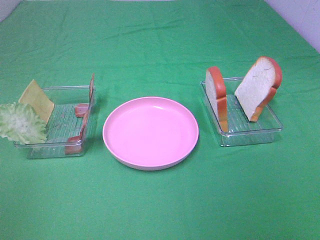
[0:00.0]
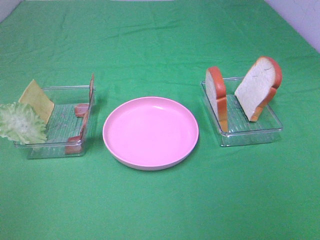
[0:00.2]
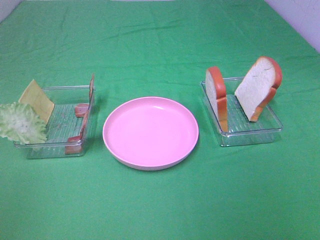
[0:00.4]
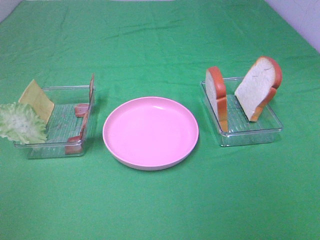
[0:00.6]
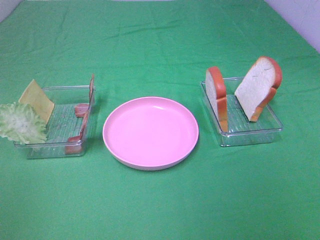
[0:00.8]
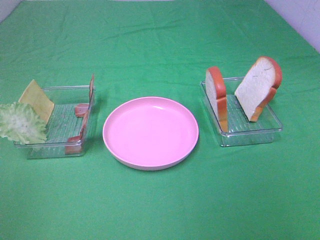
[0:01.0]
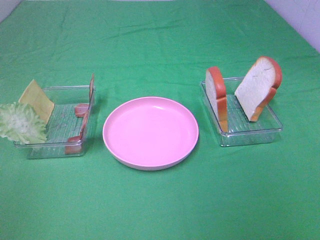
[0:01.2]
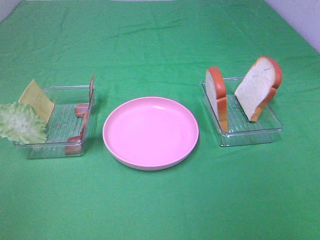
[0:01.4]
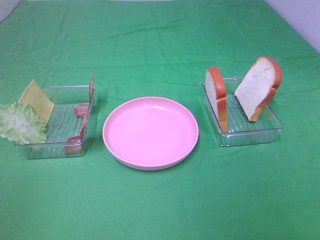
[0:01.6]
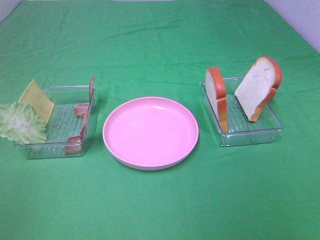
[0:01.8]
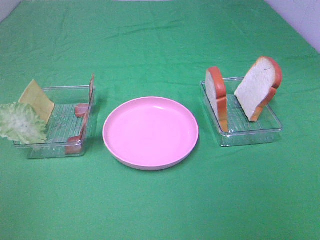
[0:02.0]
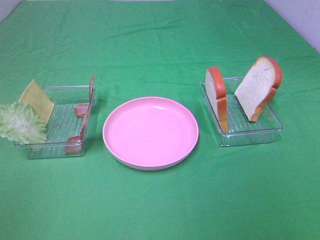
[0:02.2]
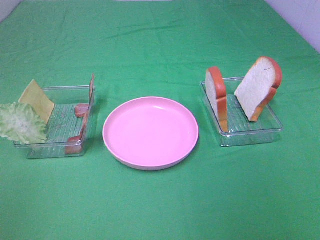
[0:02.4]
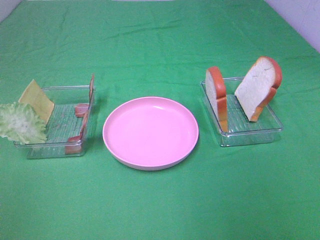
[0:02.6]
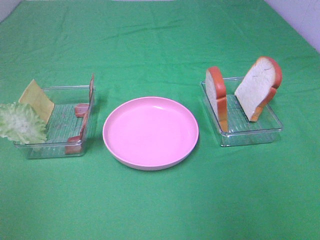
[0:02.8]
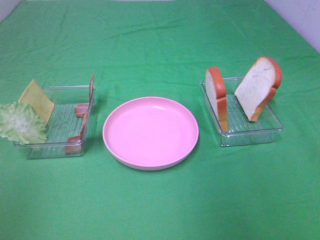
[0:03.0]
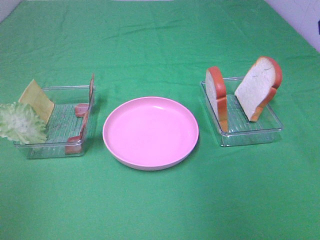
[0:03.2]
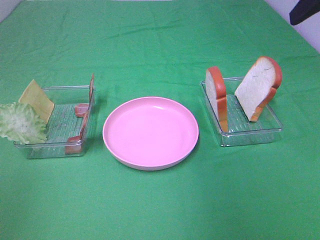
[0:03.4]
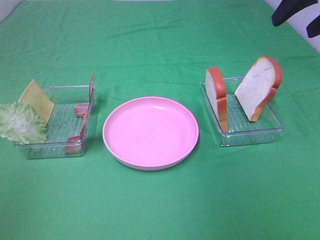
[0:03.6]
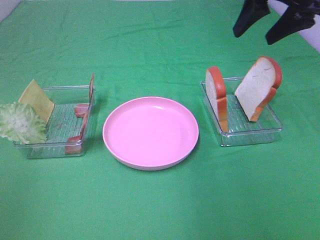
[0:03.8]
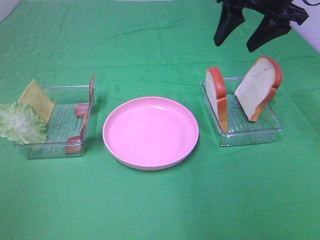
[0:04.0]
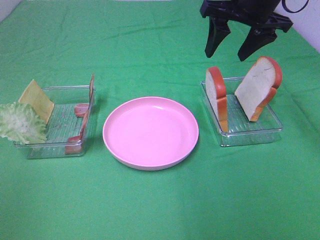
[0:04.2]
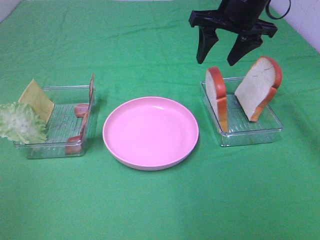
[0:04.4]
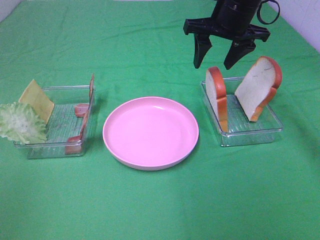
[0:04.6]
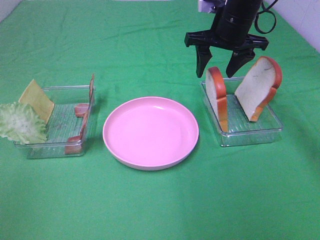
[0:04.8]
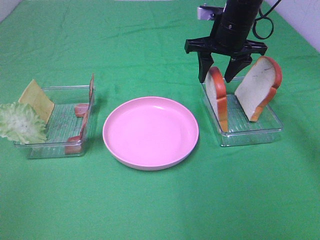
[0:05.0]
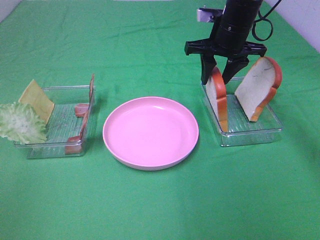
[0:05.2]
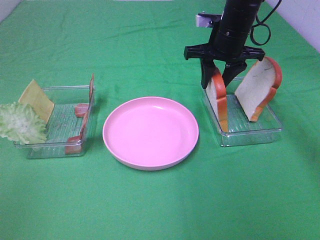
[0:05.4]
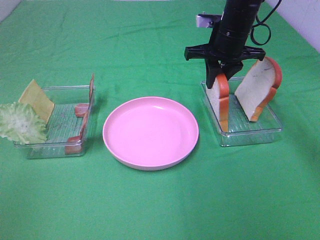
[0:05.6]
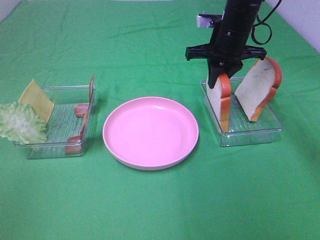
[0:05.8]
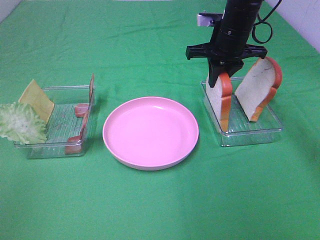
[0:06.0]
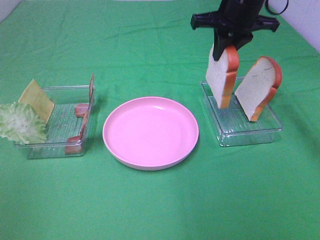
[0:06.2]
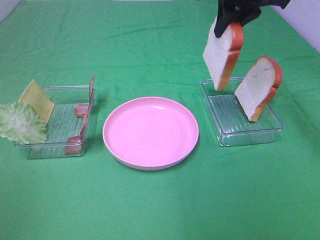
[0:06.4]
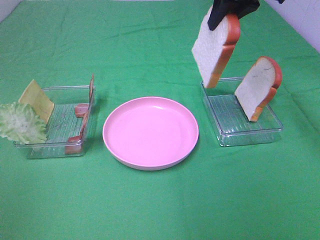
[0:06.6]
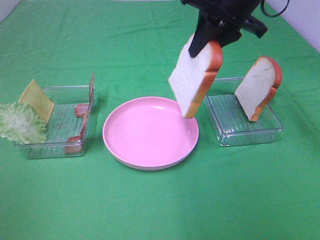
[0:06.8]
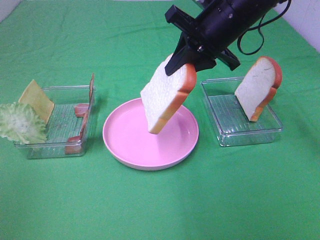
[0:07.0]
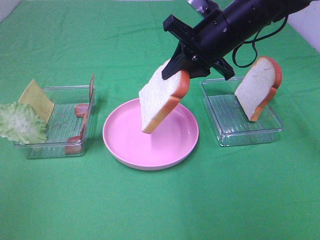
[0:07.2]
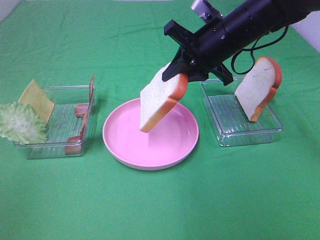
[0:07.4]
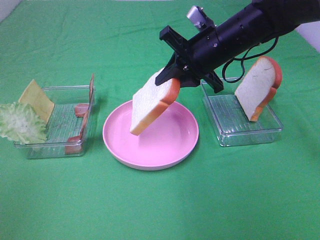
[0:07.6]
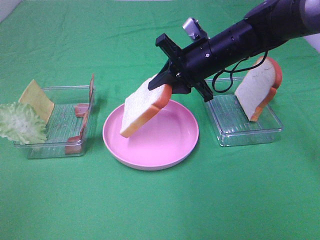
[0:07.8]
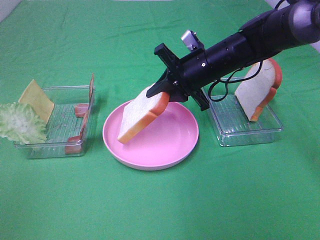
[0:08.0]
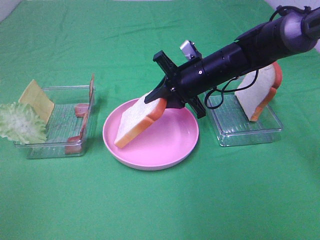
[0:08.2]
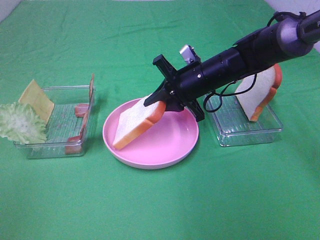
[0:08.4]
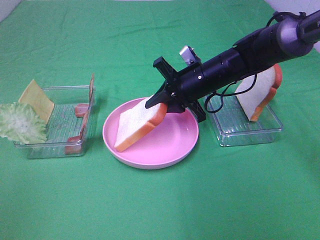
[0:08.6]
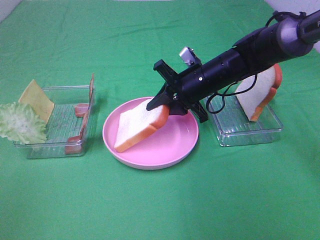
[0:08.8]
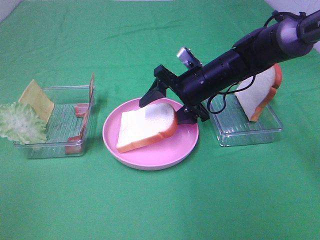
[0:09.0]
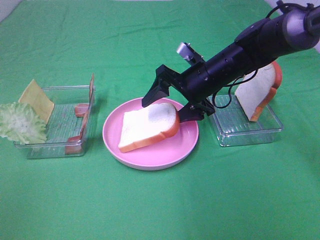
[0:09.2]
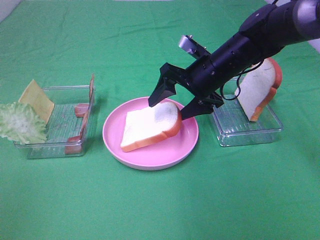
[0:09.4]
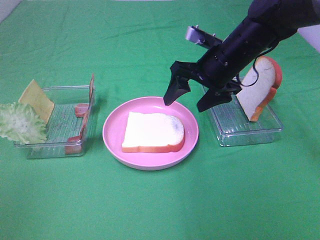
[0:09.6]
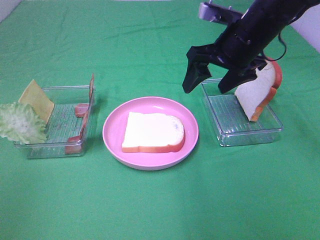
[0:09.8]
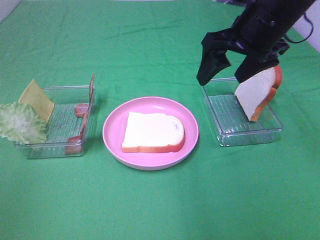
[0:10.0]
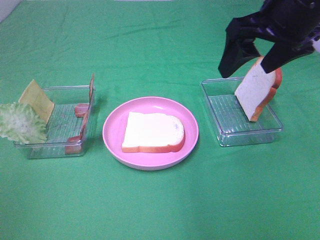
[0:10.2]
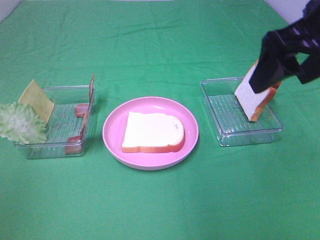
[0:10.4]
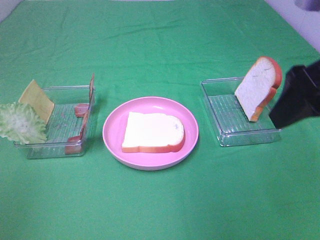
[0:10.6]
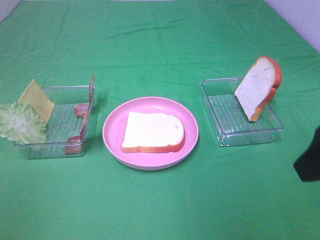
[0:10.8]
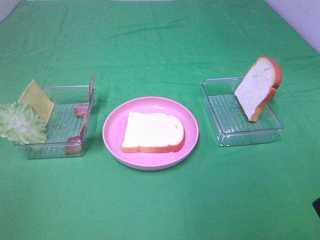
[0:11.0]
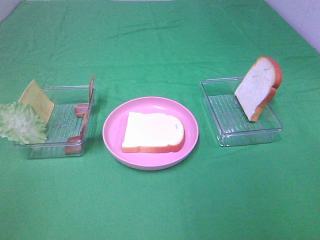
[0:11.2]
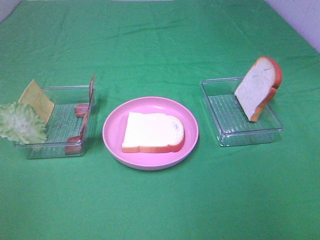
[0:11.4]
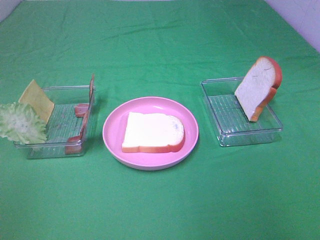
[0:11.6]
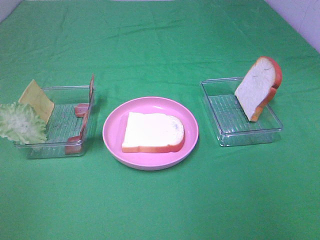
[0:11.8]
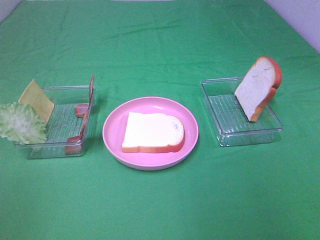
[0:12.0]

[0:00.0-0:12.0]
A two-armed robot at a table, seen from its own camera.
Task of the whole recording: Make sandwiches.
Step, 0.0 to 6.0 s: Right hand:grab the bread slice.
Step, 6.2 to 9.4 s: Right hand:place the bread slice on the plate.
0.0 to 1.6 s: Both grippers stay about where they are.
3.0 to 4.4 s: The right gripper travels forward, to the left and downward by roughly 30 cm.
4.4 to 6.0 s: The right gripper is displaced downward by approximately 5 cm, and closes its fingers.
6.0 to 7.6 s: The right gripper is displaced backward by approximately 5 cm, and travels upward and back again, some 10 cm each way.
7.6 to 9.0 s: The right gripper shifts approximately 10 cm downward, and opens up.
9.0 to 10.4 s: The right gripper moves upward, backward and to the right, approximately 25 cm.
10.4 to 12.0 s: The right gripper is displaced backward by about 25 cm.

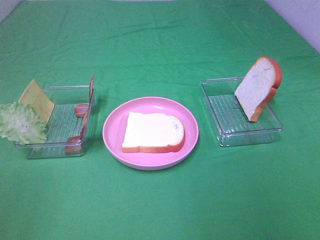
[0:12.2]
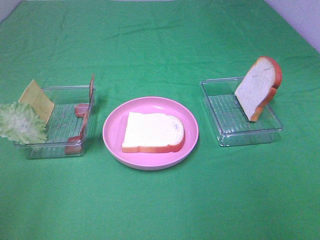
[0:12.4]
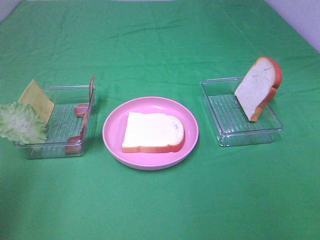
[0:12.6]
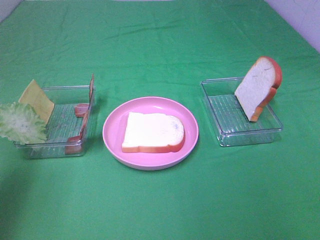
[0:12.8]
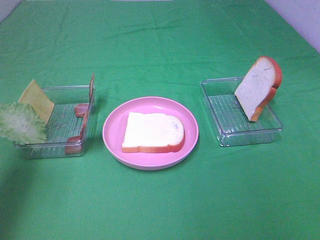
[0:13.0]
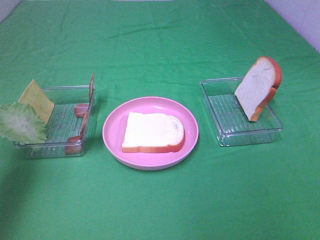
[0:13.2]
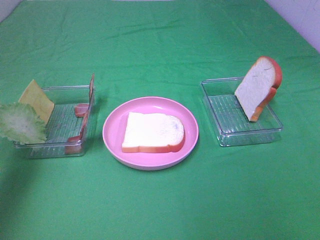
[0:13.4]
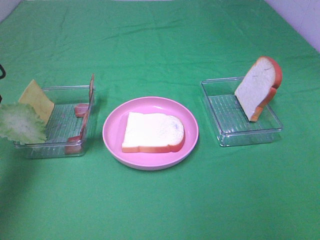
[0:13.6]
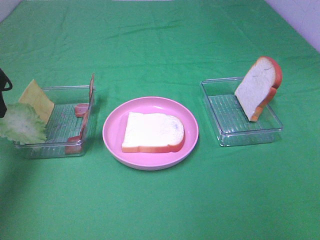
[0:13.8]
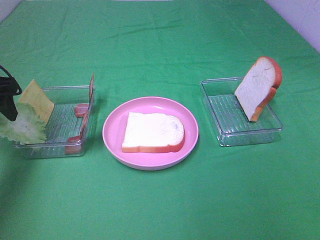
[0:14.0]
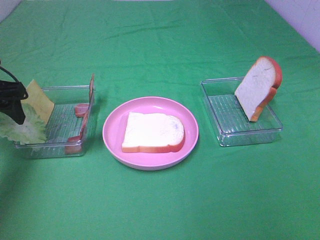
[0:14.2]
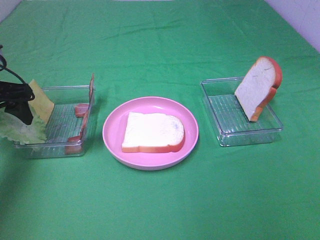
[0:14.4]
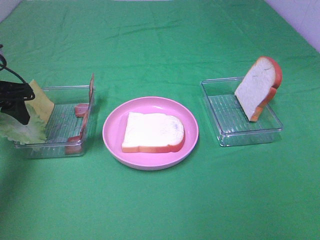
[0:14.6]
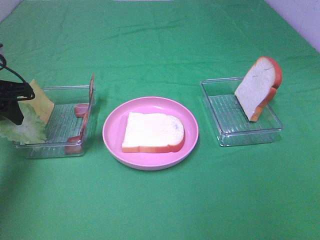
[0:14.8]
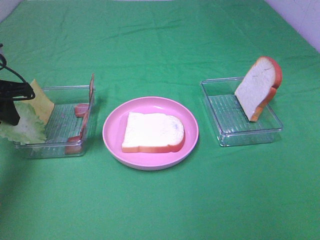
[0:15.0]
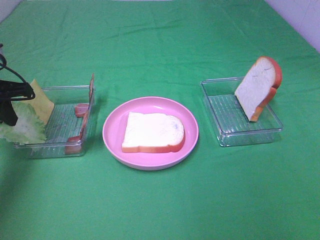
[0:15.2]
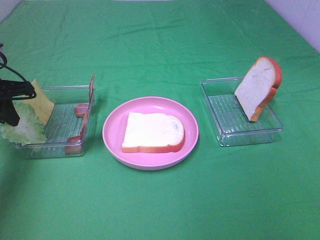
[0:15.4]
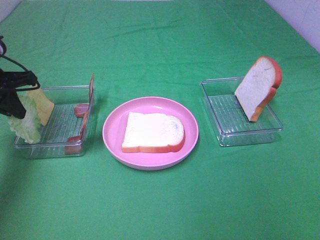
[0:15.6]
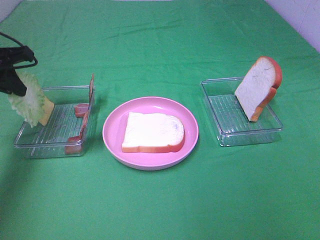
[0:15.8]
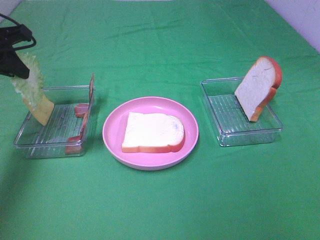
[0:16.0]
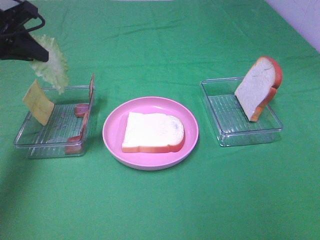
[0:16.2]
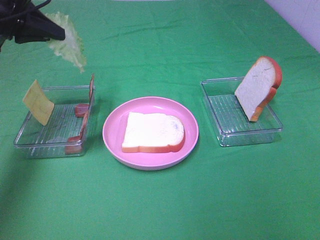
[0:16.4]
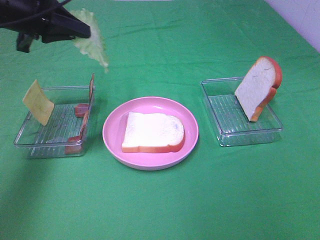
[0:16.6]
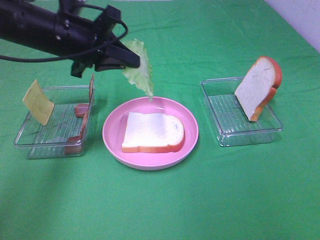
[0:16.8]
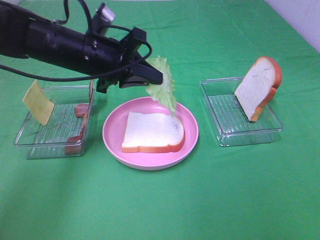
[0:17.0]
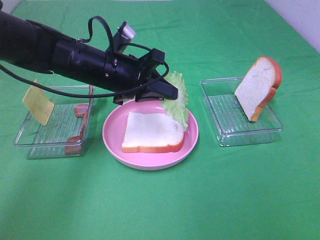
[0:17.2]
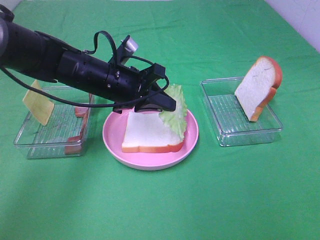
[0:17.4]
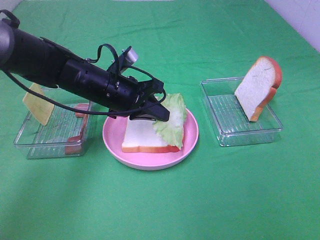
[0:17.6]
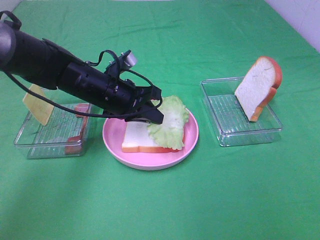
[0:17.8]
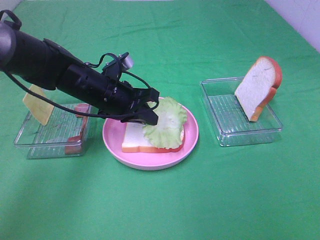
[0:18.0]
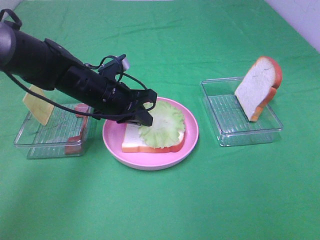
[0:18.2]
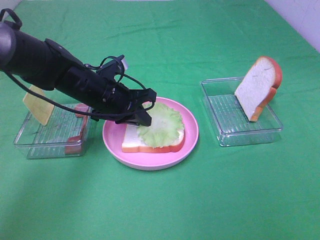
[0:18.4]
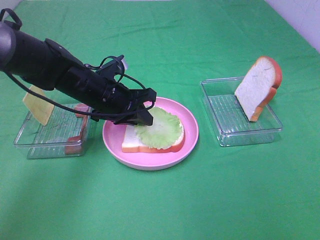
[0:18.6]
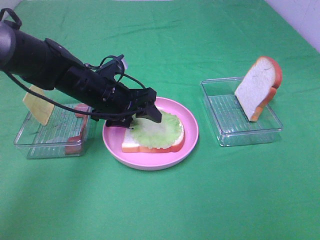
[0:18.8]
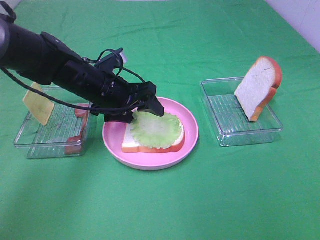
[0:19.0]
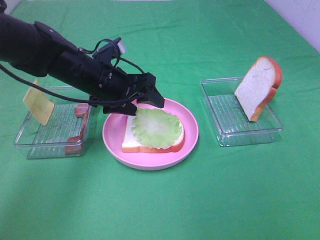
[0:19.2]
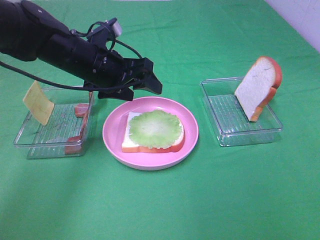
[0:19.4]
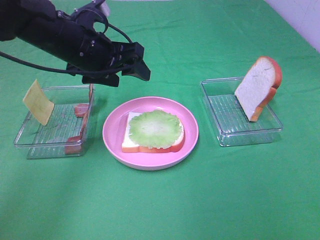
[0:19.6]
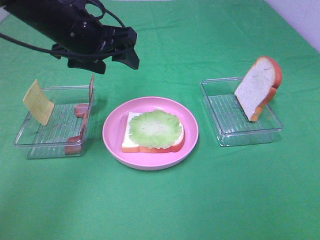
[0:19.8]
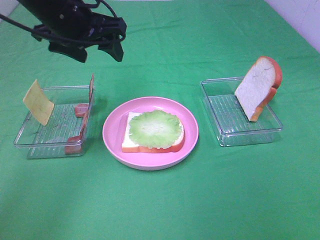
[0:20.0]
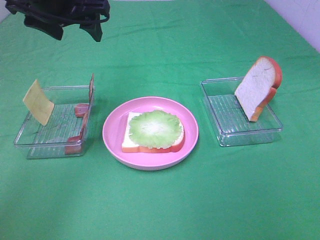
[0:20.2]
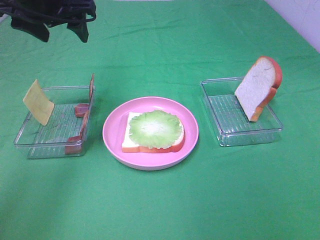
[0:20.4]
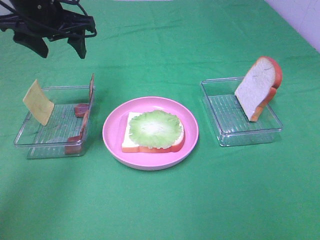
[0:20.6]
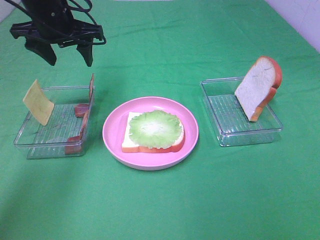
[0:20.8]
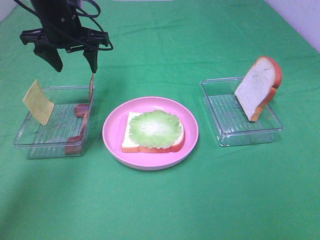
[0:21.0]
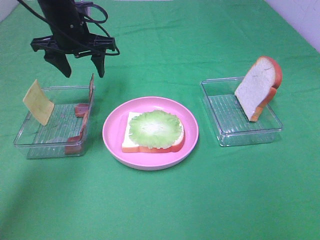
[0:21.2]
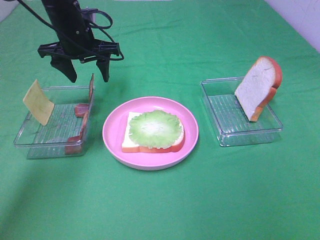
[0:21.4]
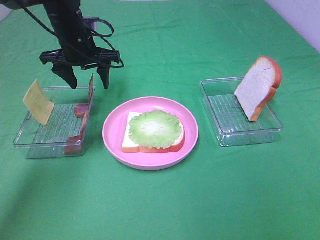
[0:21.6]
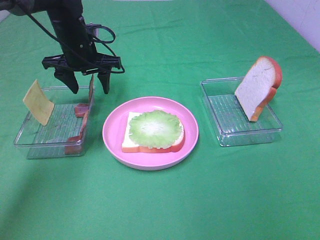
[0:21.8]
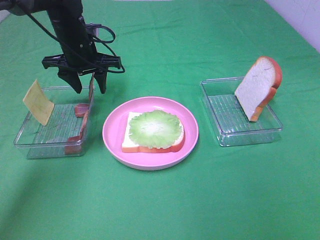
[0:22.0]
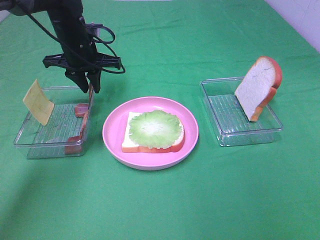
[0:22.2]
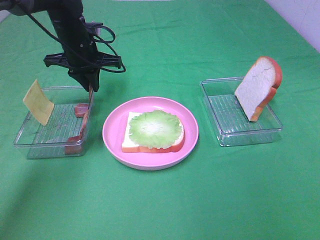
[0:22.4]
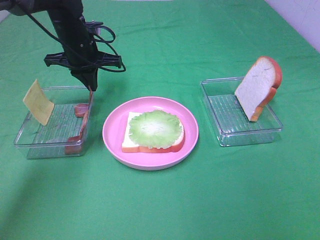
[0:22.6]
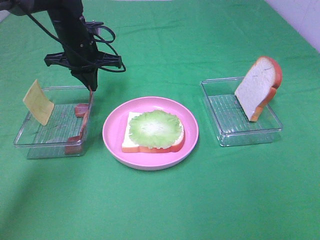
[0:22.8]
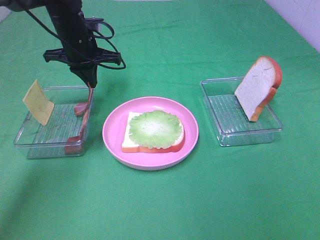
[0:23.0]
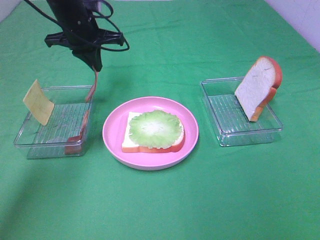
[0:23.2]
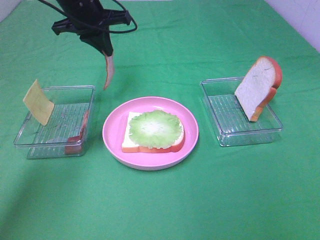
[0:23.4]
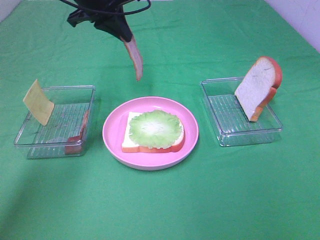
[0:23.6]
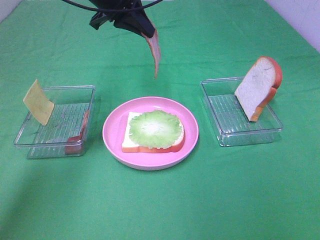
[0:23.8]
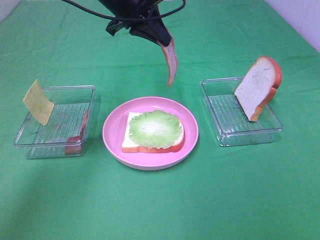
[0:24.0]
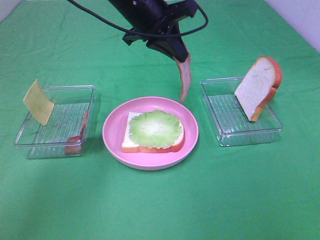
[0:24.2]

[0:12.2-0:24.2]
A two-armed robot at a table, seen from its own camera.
Task of the whole recording: Make sandwiches.
Step, 12.2 to 15.4 s: Left hand:grab the lettuce slice.
Step, 15.6 to 19.4 s: Left hand:place the lettuce slice on the bread slice.
Step, 19.6 to 22.8 s: Left hand:grab the bacon.
12.2 to 13.8 s: The left gripper travels forward by some 30 cm.
13.8 to 15.2 s: The left gripper changes place by about 5 cm, and closes its fingers.
15.2 to 16.6 s: The left gripper shifts approximately 15 cm to the right and upward.
16.6 to 18.2 s: The left gripper heads downward and to the right, covering approximately 20 cm.
18.2 to 19.8 s: The left gripper is displaced upward by some 15 cm, and opens.
19.8 to 21.2 s: The left gripper is displaced forward by about 10 cm.
21.2 to 22.6 s: The left gripper closes up.
22.6 to 24.2 s: The left gripper is displaced to the right, upward and backward by approximately 15 cm.
